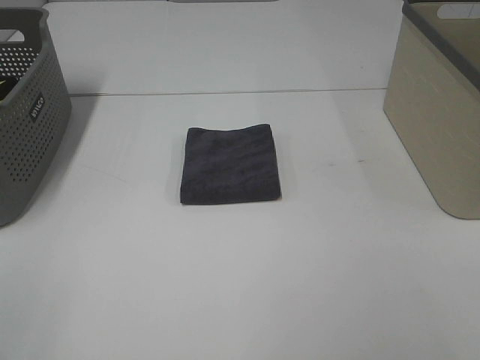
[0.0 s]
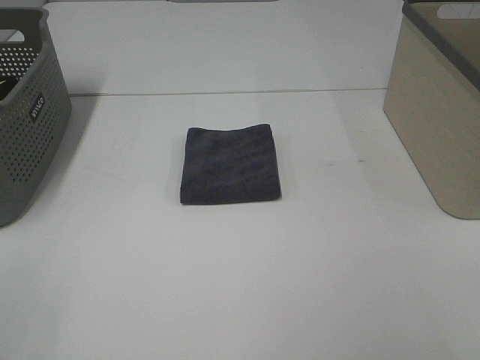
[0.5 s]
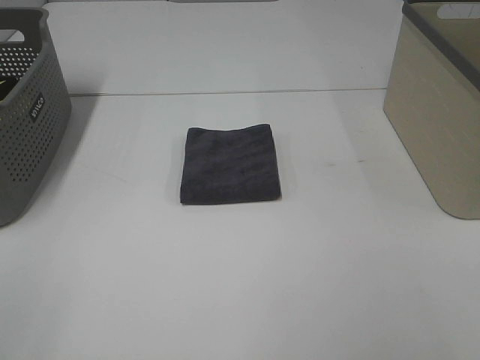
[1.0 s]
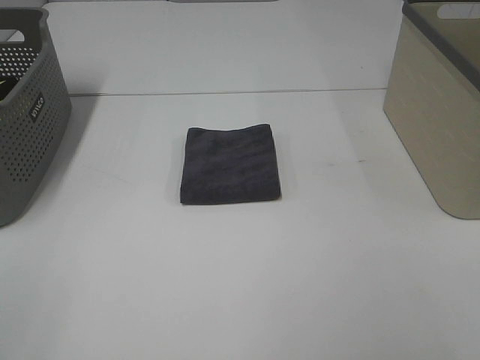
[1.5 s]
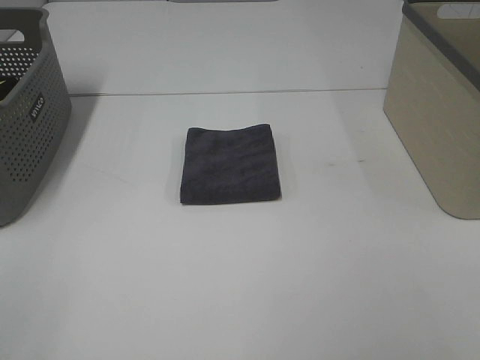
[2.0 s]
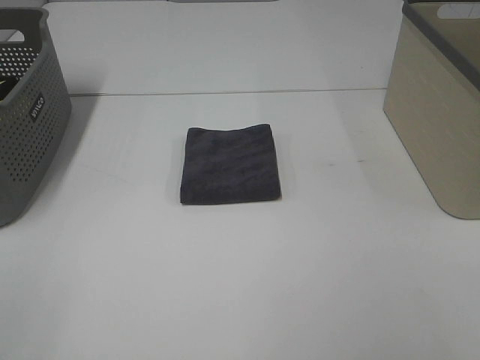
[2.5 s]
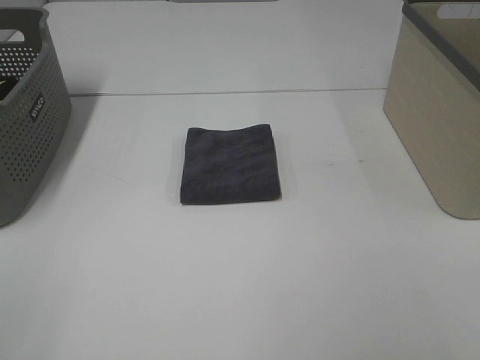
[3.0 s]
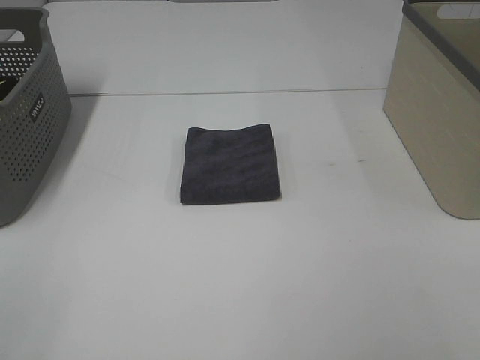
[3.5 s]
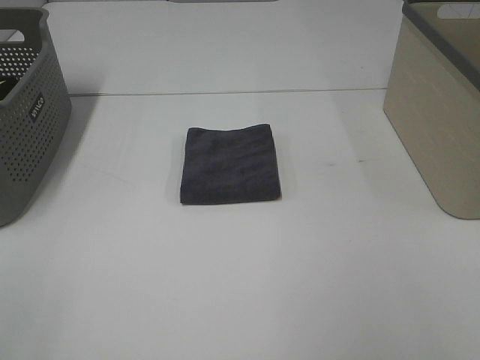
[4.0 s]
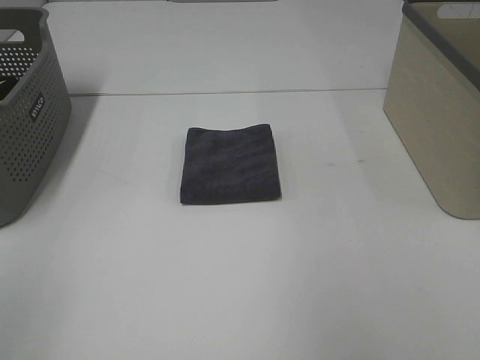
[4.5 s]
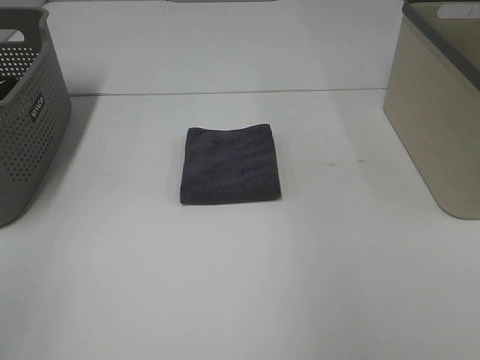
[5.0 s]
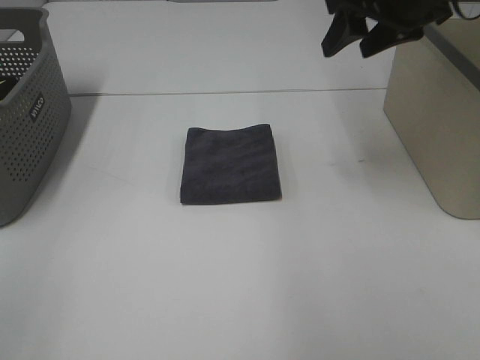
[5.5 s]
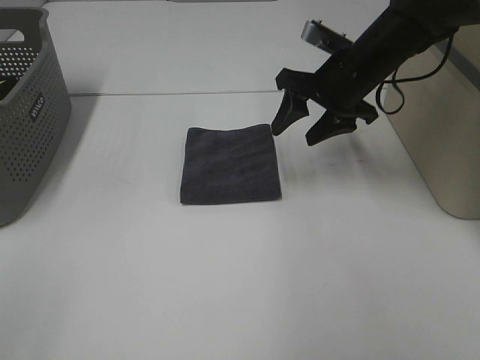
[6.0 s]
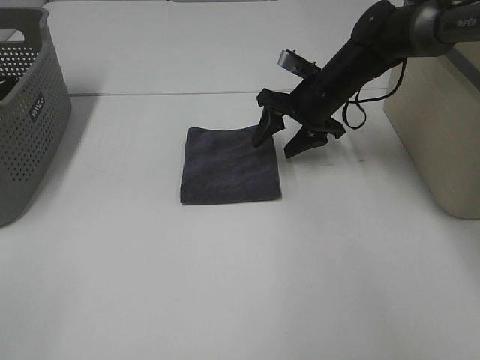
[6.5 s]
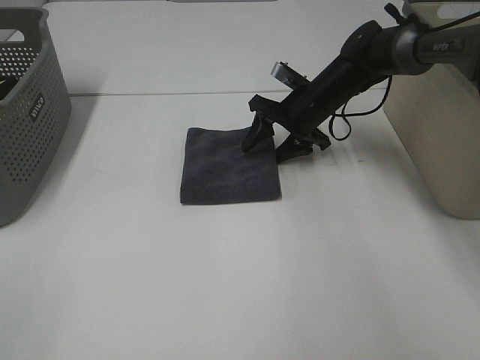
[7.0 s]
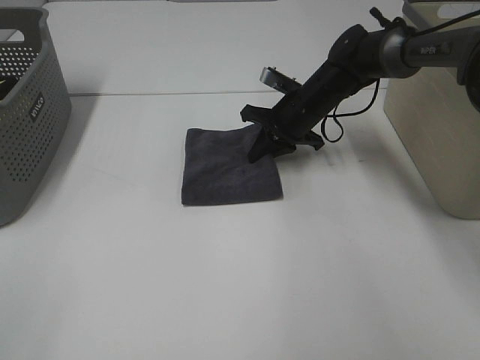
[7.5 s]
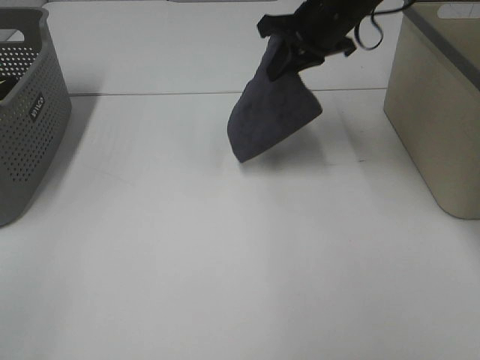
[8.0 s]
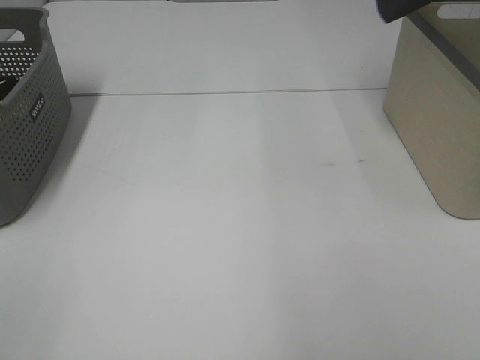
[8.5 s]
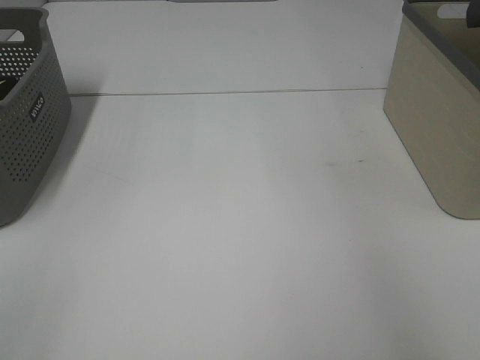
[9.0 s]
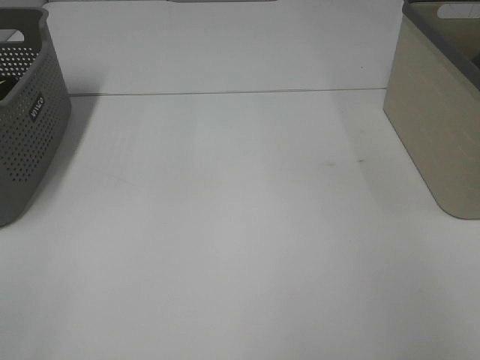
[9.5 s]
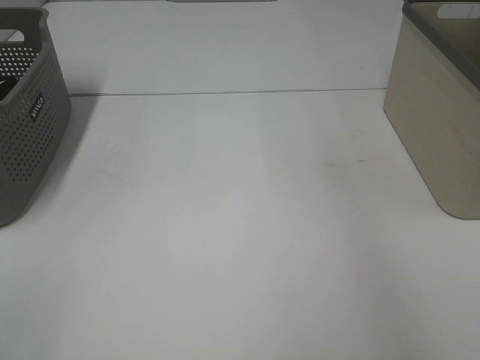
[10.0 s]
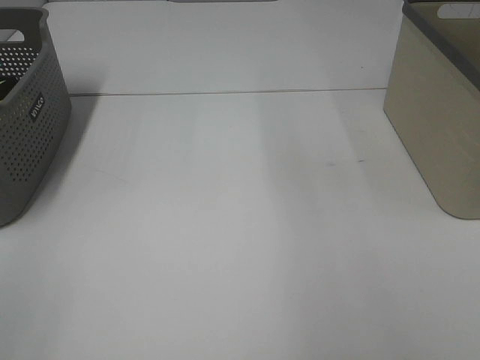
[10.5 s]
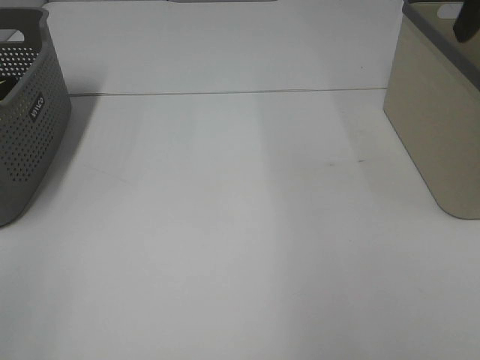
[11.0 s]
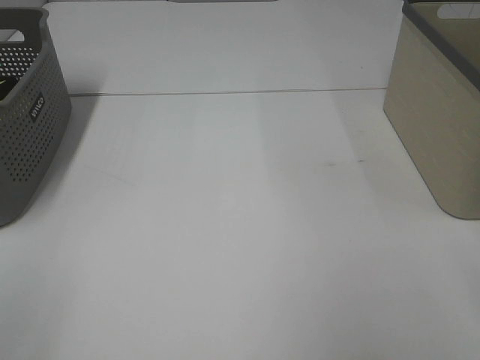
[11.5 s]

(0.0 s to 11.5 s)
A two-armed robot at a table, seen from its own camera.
Step, 0.0 s - 7.0 s: Right hand: grab the folded grey towel.
Step, 7.5 s - 9.5 s: Right hand: place the grey towel in right basket.
0.0 s - 2.0 s: Both grippers stay put.
4.0 s - 6.0 s: The right gripper moves forward and downward, roughly 40 cm.
6.0 s - 7.5 s: The right gripper travels downward and forward by some 10 cm, and closes its fingers.
7.5 s - 9.5 s: The right gripper heads to the right and upward, covering approximately 40 cm, and opens.

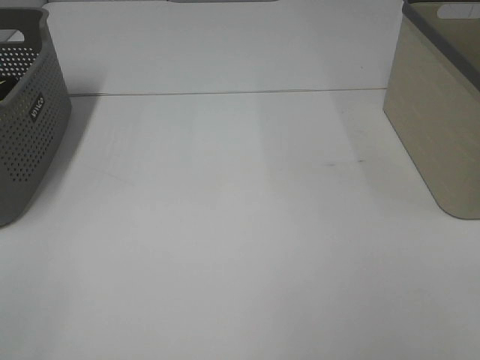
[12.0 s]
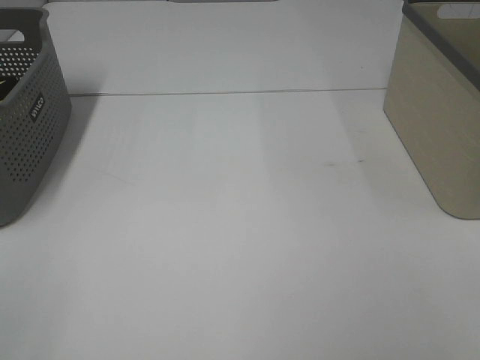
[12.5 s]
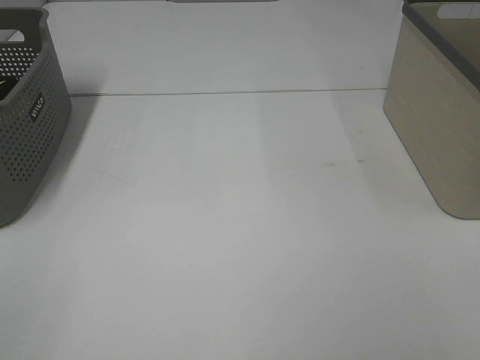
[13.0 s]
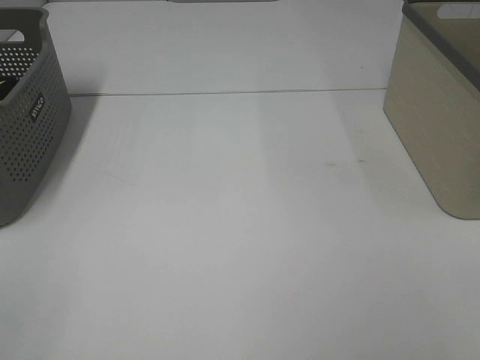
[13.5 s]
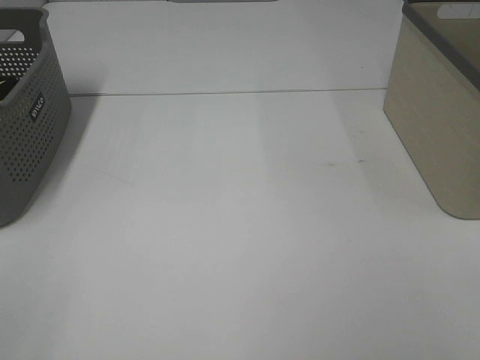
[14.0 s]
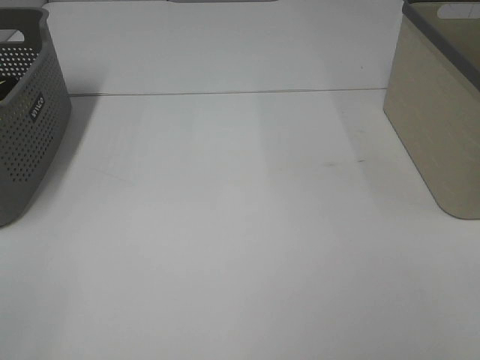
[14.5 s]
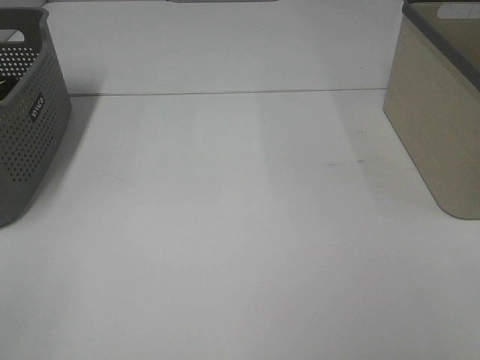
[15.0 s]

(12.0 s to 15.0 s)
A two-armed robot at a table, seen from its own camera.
13.5 s - 15.0 s: Neither gripper changes place.

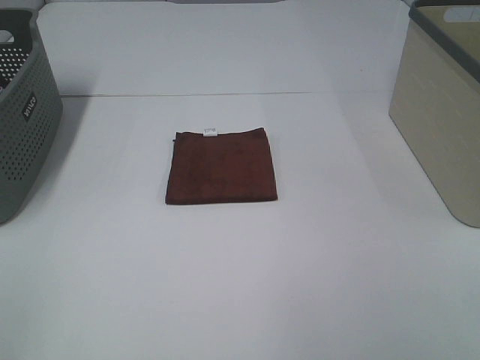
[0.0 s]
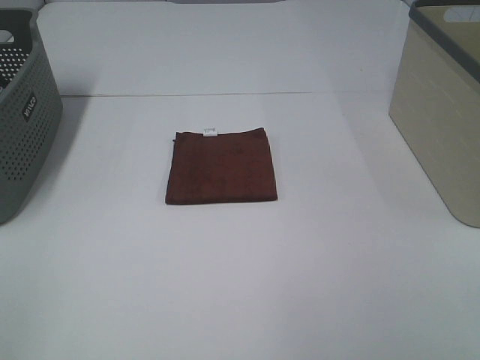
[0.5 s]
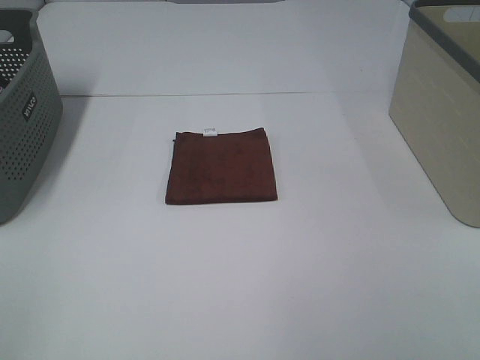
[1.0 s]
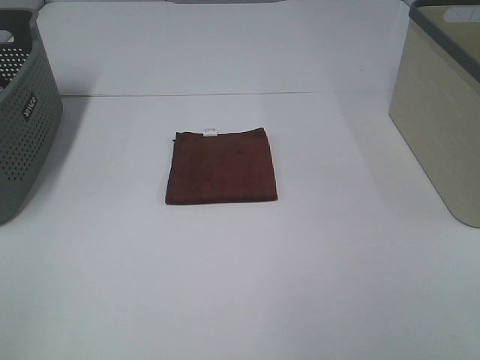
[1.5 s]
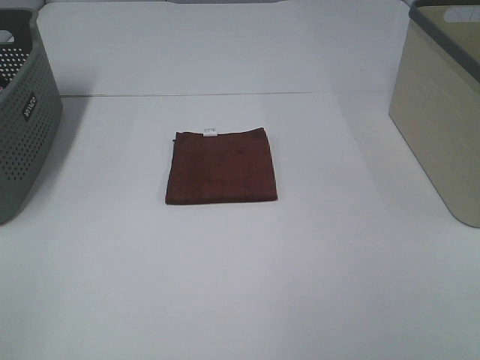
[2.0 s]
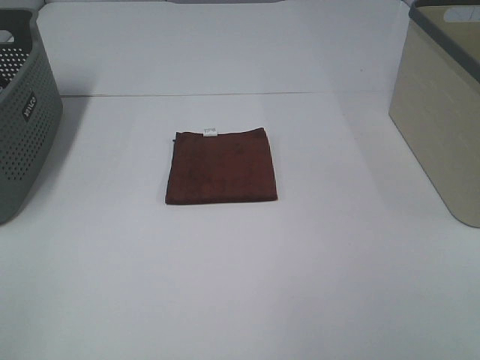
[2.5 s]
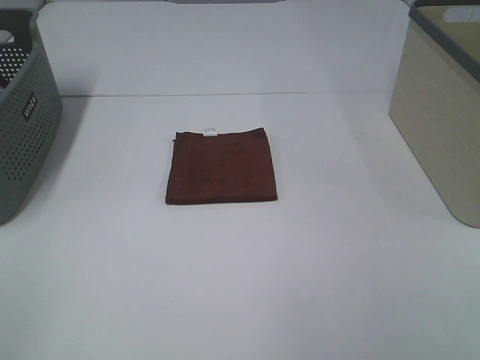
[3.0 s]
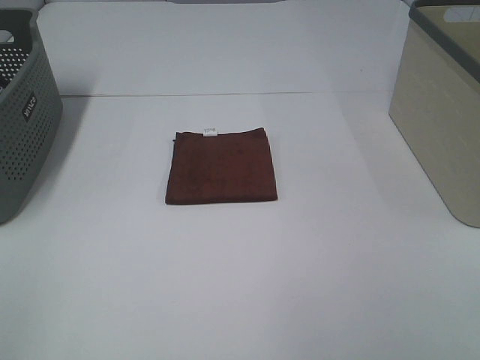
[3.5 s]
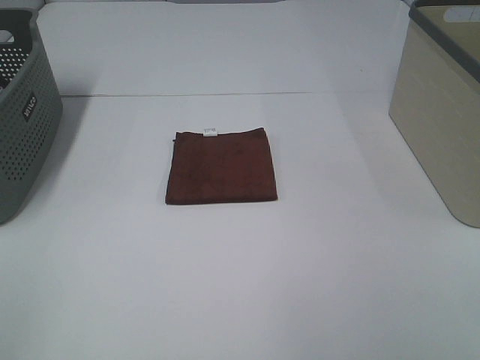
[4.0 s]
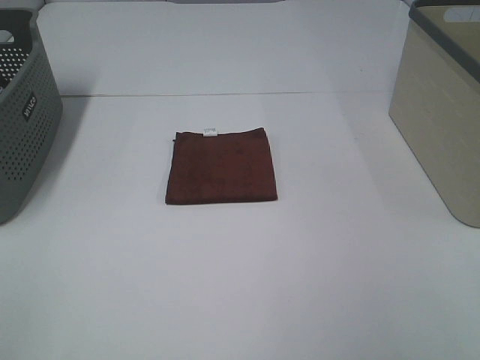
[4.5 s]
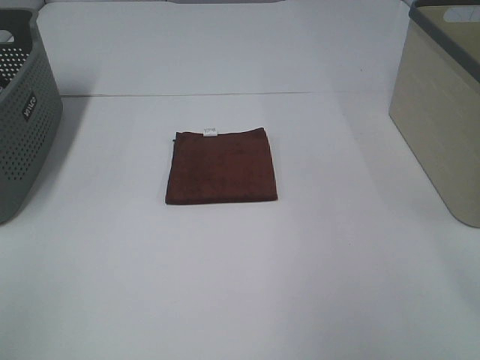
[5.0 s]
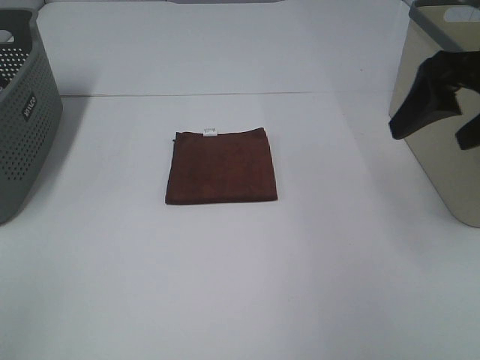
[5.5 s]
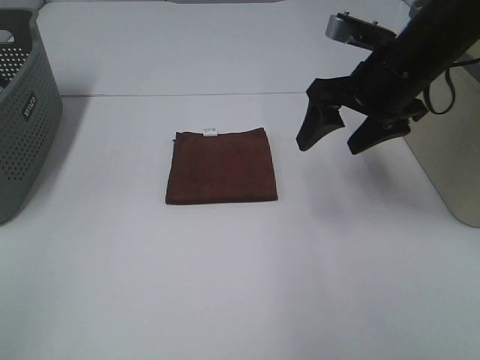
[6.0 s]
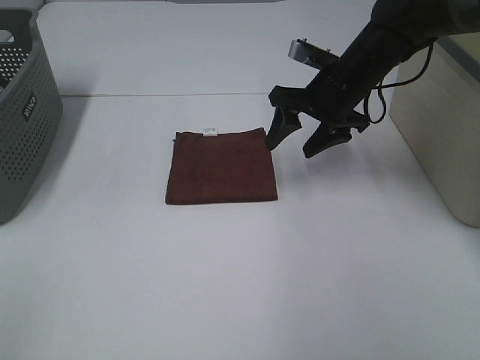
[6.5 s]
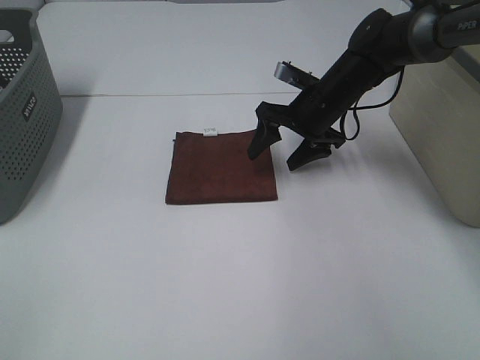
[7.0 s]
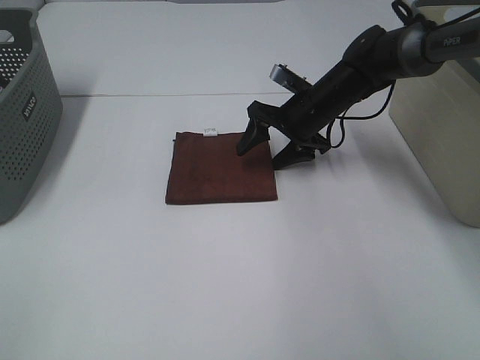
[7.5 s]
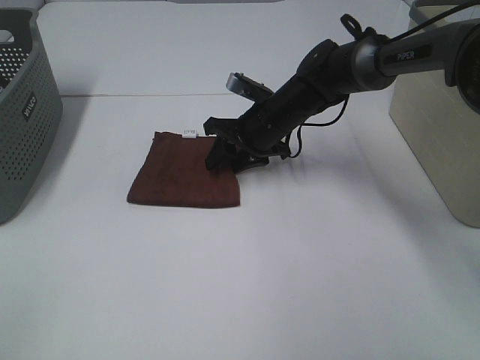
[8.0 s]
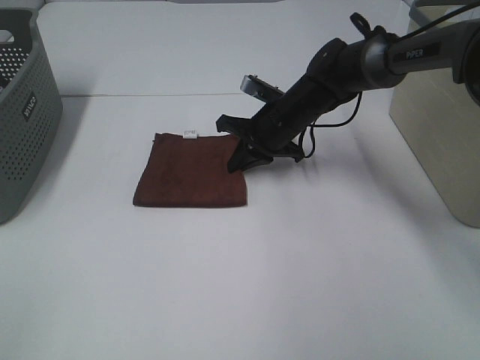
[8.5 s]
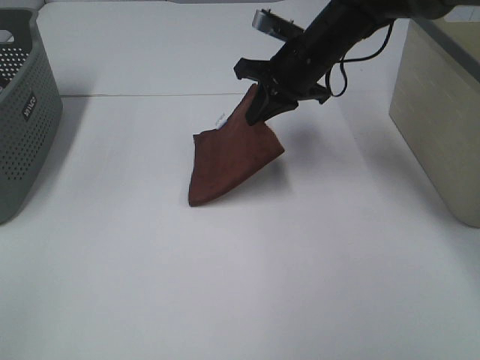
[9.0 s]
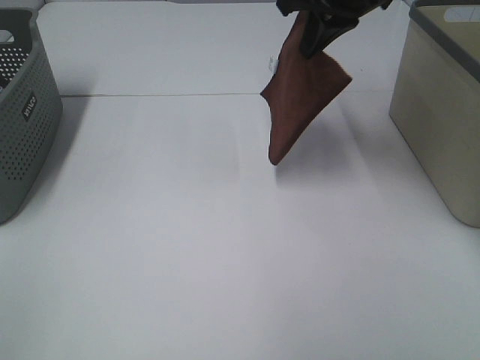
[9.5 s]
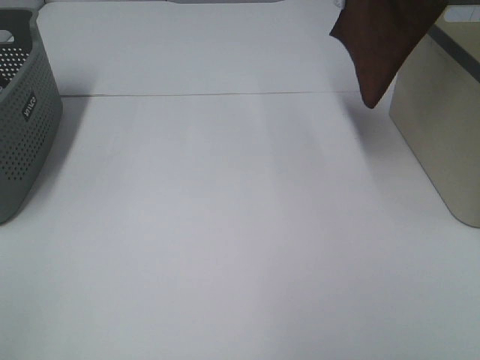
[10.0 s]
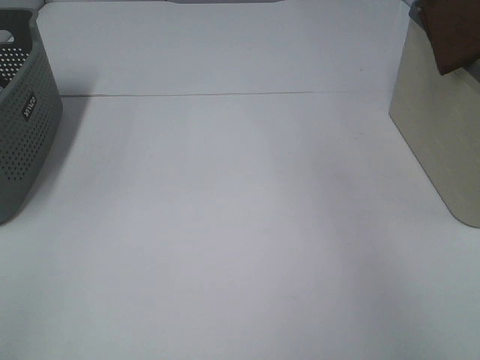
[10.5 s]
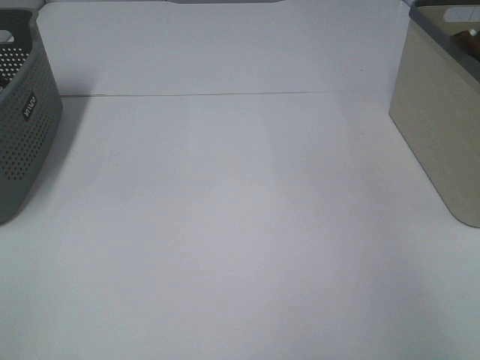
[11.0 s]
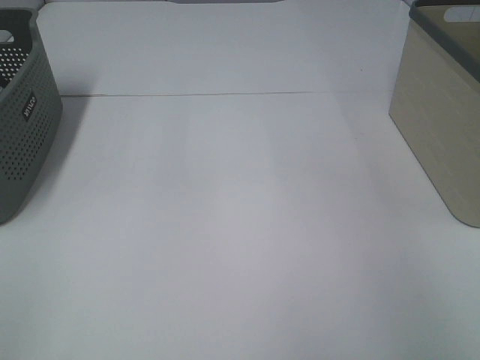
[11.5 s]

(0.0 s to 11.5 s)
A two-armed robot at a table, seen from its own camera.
Step, 0.0 s - 8.0 s: Right hand: grab the folded brown towel.
0.0 s - 4.0 s: The two grippers keep their place.
4.0 s - 6.0 s: The right gripper travels forward by approximately 35 cm.
6.0 s - 7.5 s: The right gripper travels downward, forward and to the left by approximately 15 cm.
7.5 s - 9.5 s: The right gripper travels upward by roughly 20 cm, and closes.
9.5 s - 11.5 s: The right gripper heads to the right, covering approximately 30 cm, and opens up.
